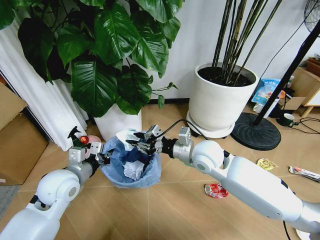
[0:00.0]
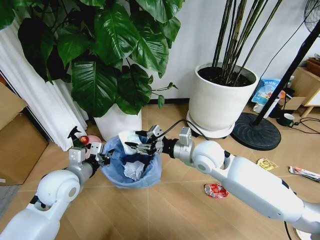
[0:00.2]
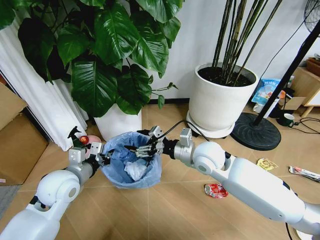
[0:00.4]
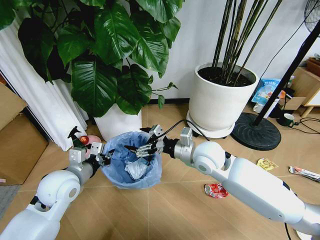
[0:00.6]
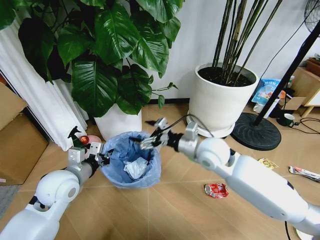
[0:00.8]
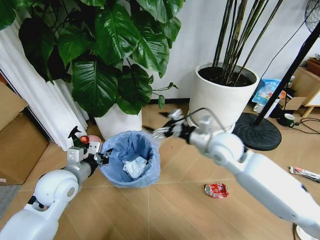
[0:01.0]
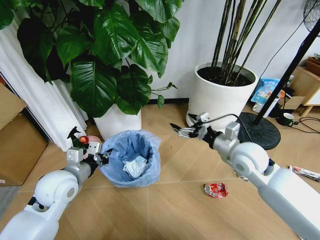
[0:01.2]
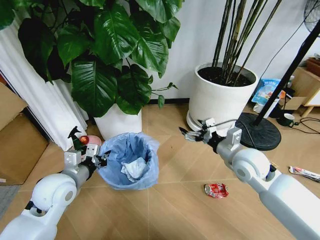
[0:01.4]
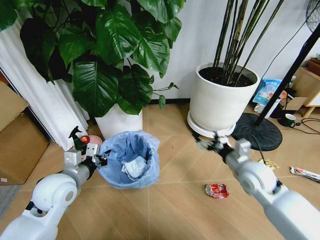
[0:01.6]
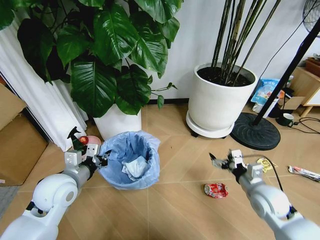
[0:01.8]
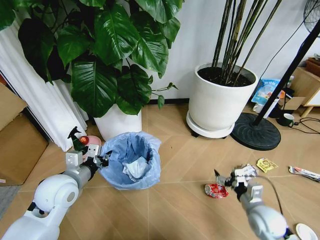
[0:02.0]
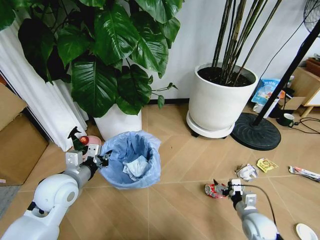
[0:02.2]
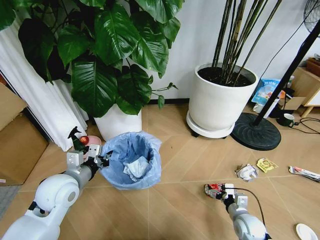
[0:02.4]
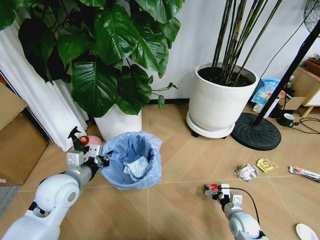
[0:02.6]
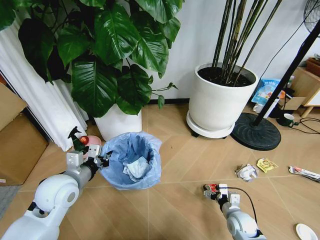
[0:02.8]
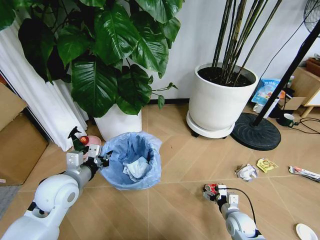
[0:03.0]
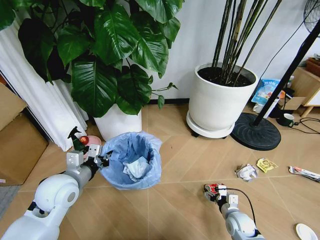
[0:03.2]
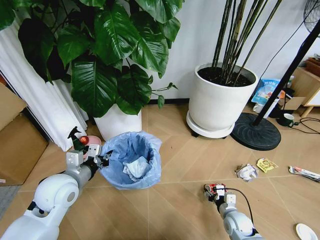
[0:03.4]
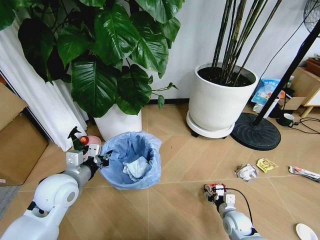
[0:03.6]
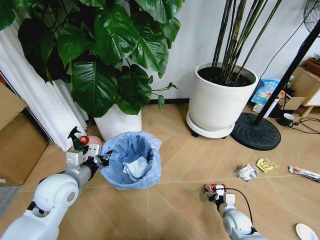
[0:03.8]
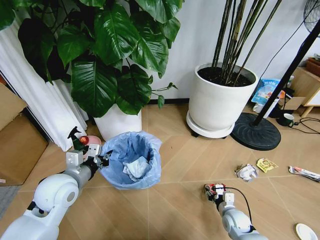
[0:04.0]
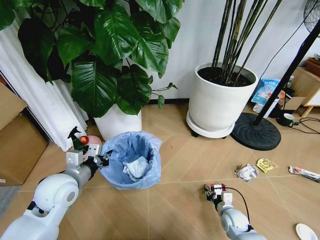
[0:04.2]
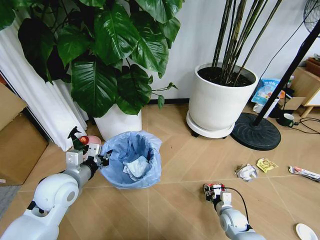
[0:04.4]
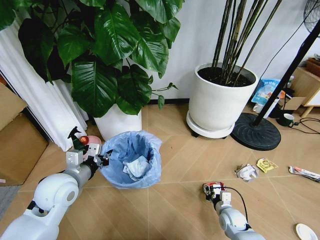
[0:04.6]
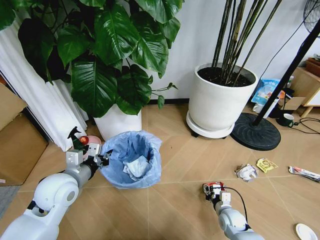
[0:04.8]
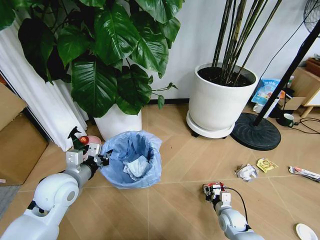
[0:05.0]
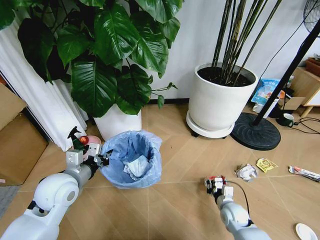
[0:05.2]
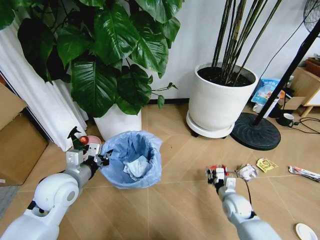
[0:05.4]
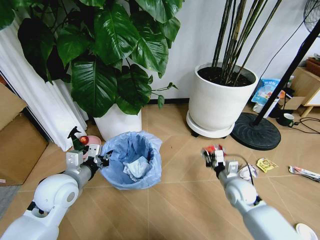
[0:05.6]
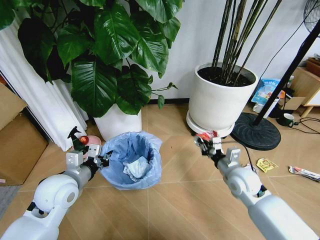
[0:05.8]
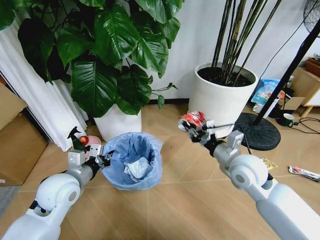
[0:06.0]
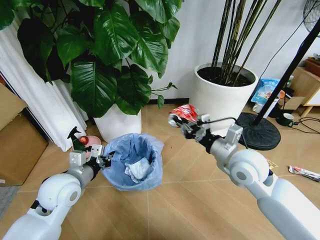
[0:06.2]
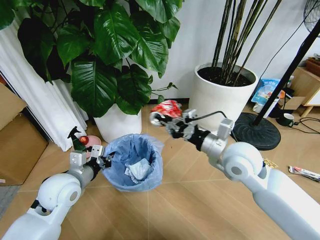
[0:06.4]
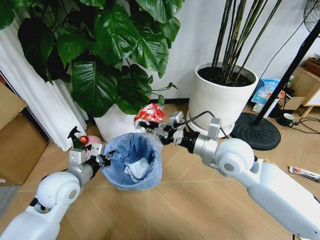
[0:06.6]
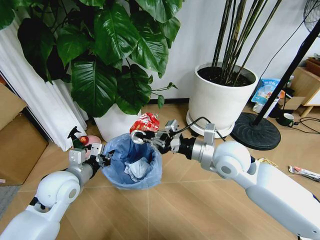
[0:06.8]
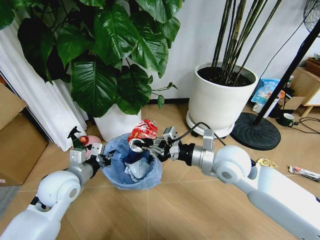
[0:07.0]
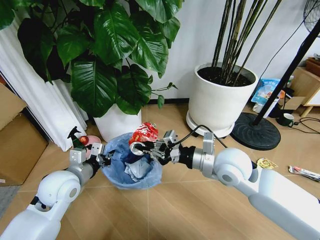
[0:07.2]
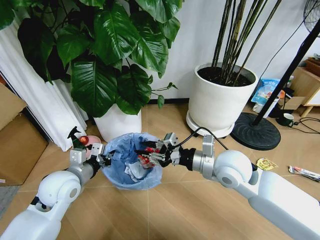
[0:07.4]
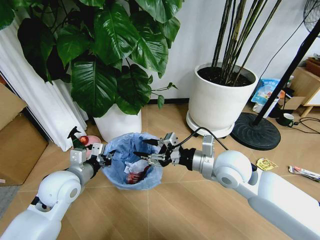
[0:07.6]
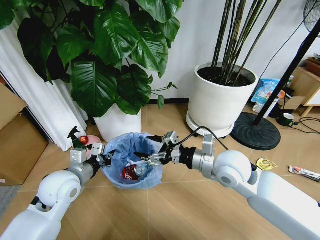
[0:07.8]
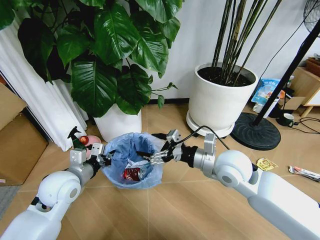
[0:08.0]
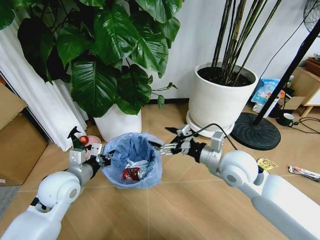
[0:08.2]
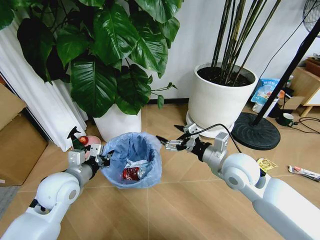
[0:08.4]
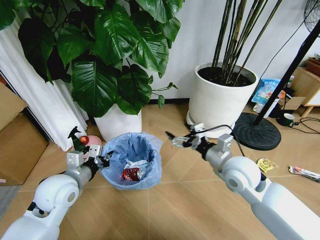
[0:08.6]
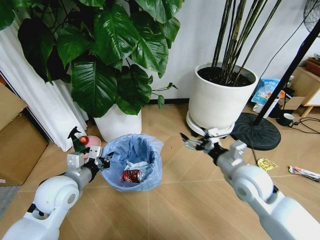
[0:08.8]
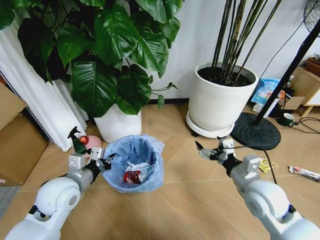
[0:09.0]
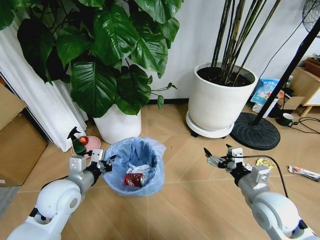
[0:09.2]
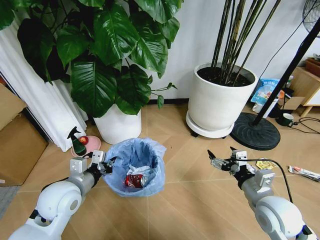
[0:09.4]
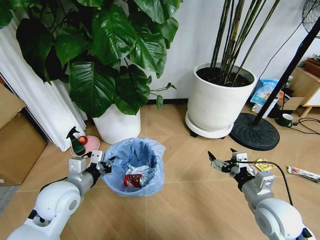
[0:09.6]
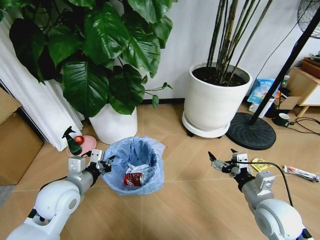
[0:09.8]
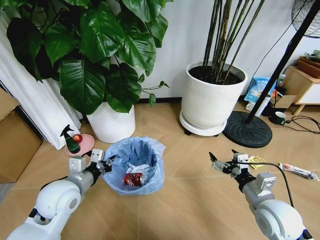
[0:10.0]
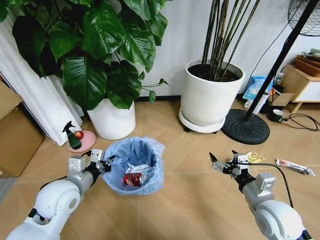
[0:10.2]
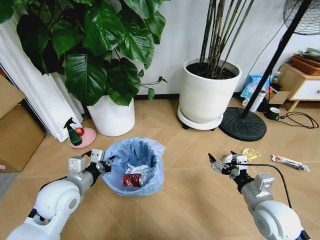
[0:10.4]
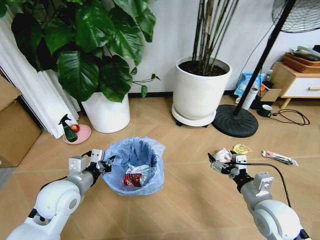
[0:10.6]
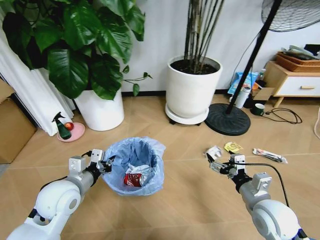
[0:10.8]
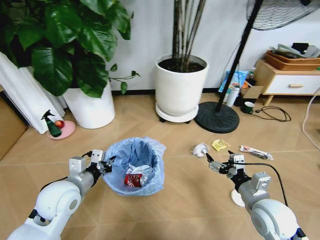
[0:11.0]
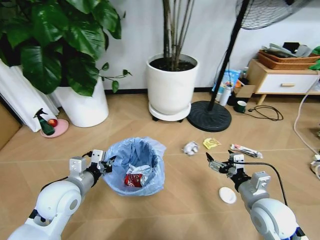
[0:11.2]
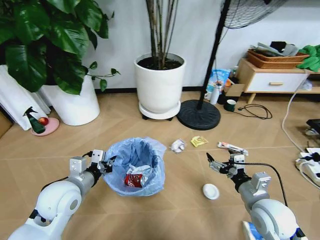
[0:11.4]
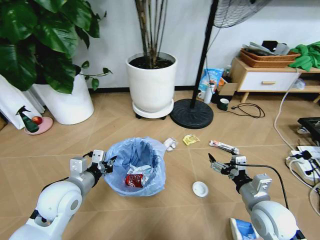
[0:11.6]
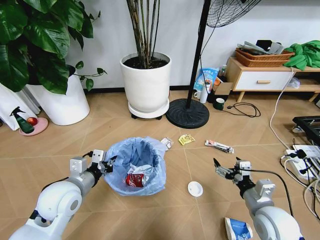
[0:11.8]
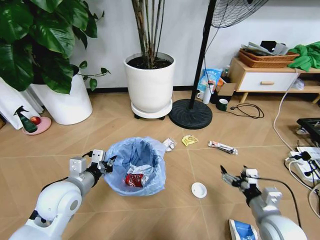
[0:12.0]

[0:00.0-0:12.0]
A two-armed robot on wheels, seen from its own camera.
Task of the whole recording: Pick up the trash bin and place the garbage on the floor into it.
0:00.0 to 0:01.6: The right gripper travels to the right by some 15 cm, and opens its fingers.
0:01.6 to 0:03.0: The right gripper heads downward, covering approximately 25 cm.
0:03.0 to 0:04.4: The right gripper closes its fingers.
0:04.4 to 0:06.0: The right gripper heads upward, covering roughly 30 cm.
0:06.0 to 0:07.6: The right gripper travels to the left by roughly 5 cm, and opens its fingers.
0:07.6 to 0:09.0: The right gripper travels to the right by some 5 cm, and opens its fingers.
0:09.0 to 0:10.4: The right gripper heads backward, covering roughly 5 cm.
0:10.4 to 0:12.0: The right gripper shifts by roughly 5 cm.

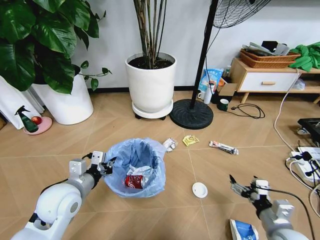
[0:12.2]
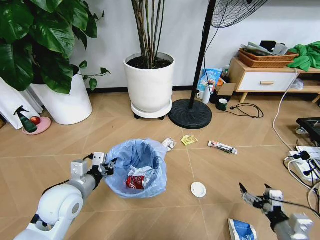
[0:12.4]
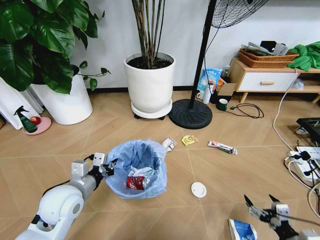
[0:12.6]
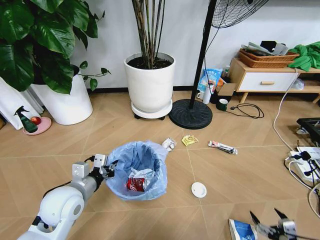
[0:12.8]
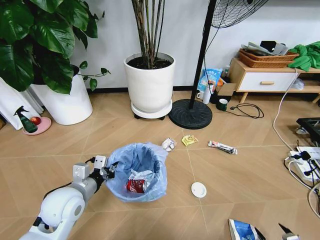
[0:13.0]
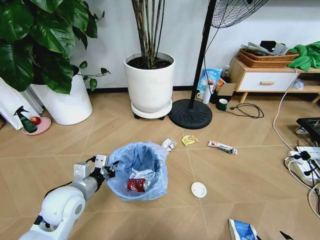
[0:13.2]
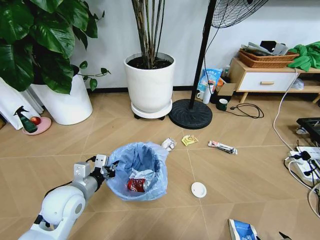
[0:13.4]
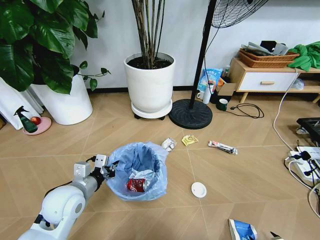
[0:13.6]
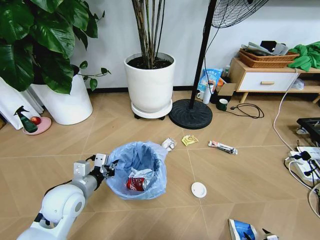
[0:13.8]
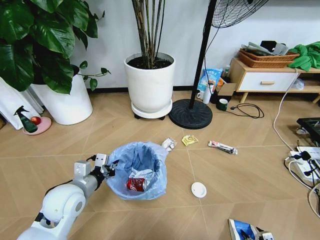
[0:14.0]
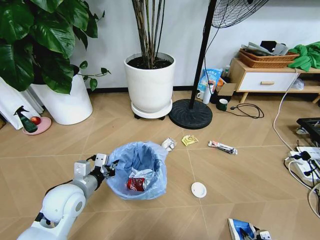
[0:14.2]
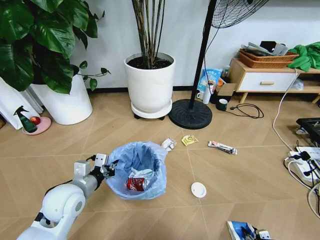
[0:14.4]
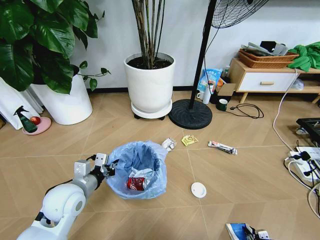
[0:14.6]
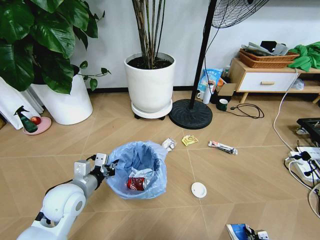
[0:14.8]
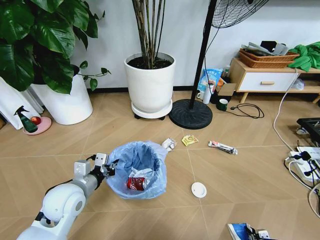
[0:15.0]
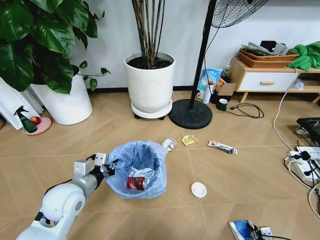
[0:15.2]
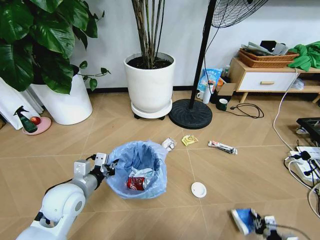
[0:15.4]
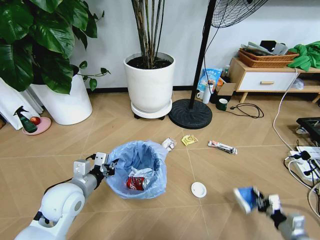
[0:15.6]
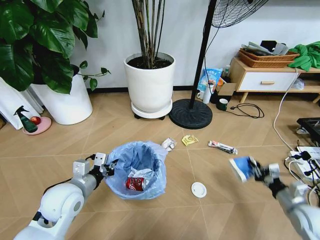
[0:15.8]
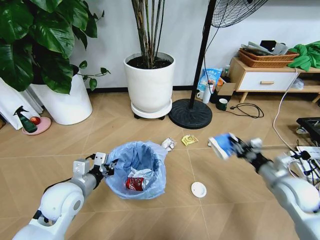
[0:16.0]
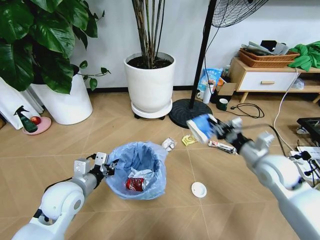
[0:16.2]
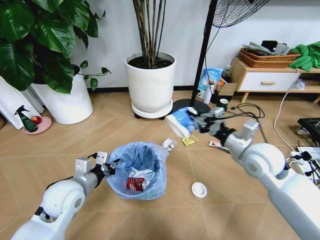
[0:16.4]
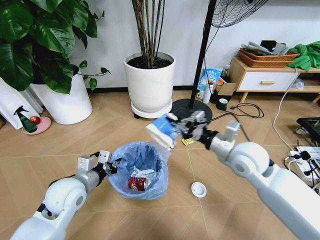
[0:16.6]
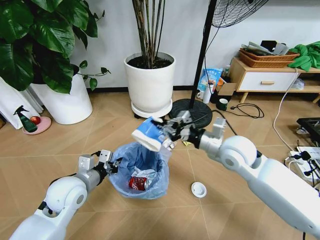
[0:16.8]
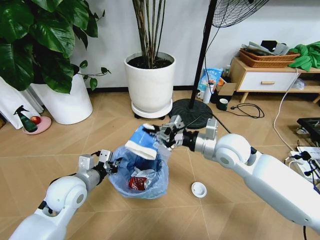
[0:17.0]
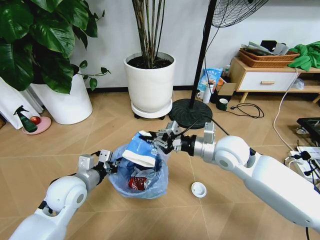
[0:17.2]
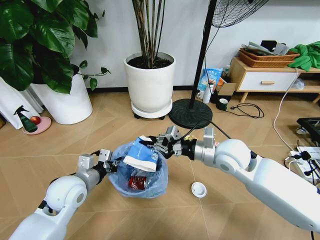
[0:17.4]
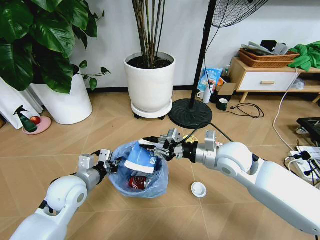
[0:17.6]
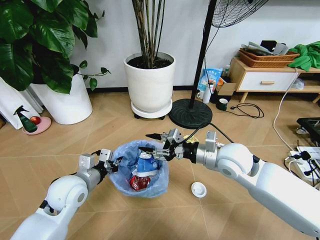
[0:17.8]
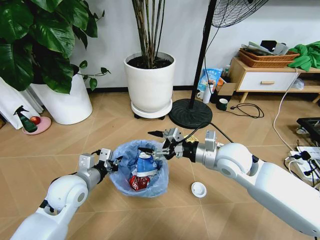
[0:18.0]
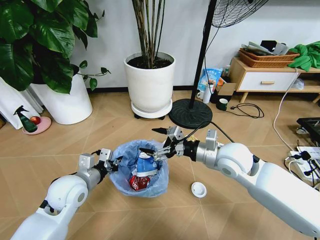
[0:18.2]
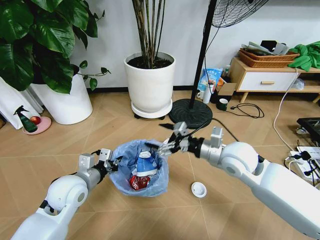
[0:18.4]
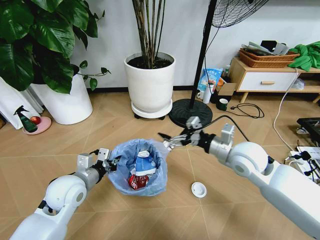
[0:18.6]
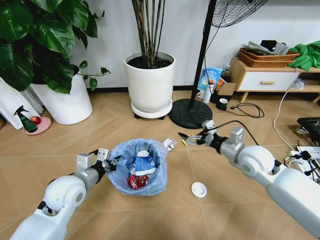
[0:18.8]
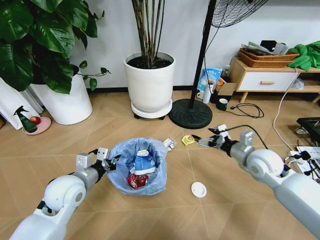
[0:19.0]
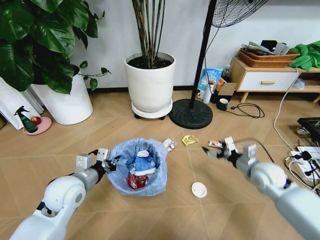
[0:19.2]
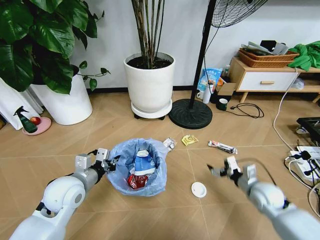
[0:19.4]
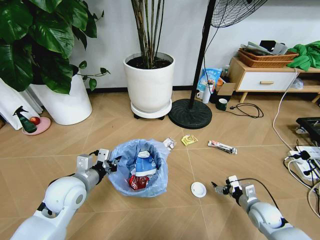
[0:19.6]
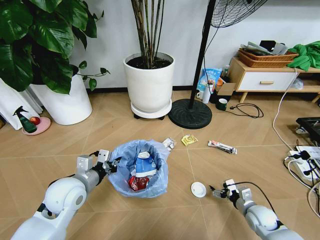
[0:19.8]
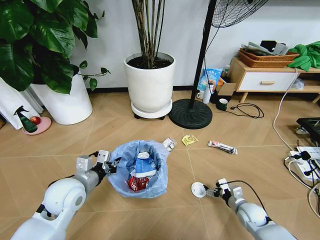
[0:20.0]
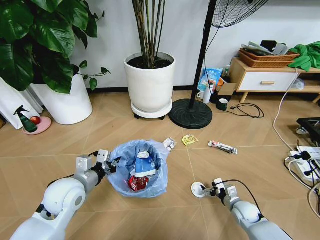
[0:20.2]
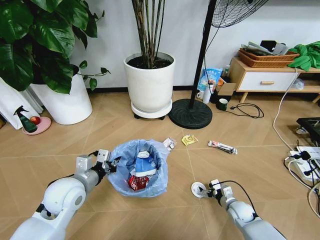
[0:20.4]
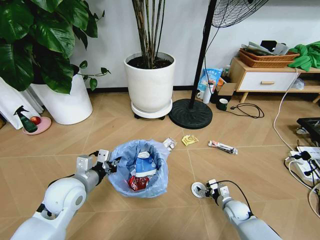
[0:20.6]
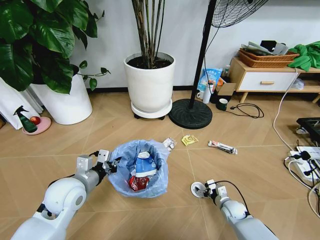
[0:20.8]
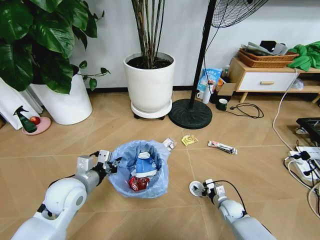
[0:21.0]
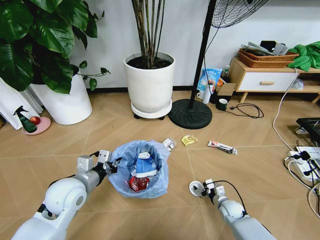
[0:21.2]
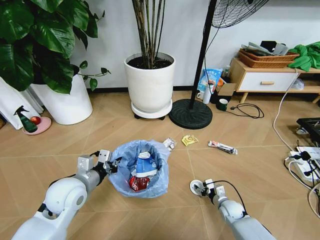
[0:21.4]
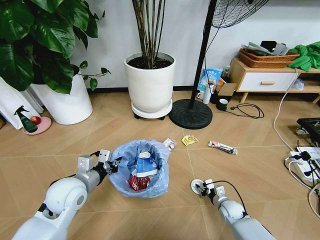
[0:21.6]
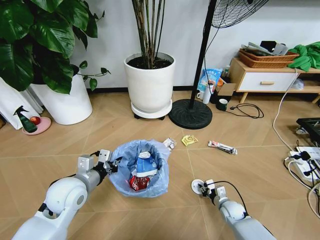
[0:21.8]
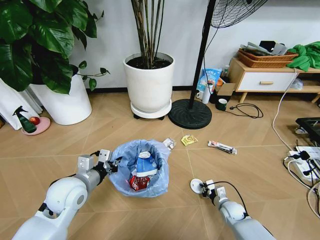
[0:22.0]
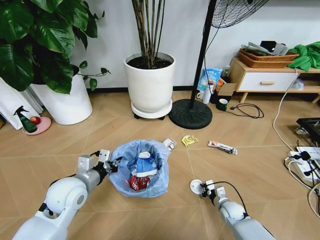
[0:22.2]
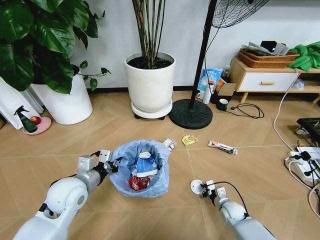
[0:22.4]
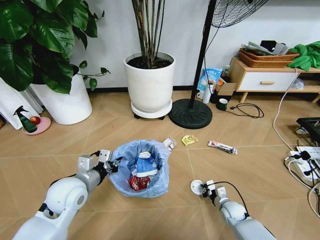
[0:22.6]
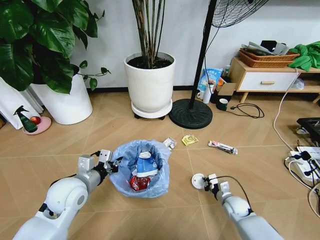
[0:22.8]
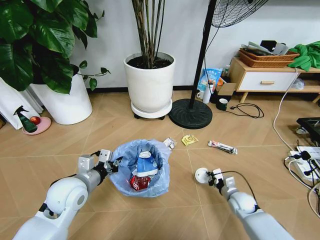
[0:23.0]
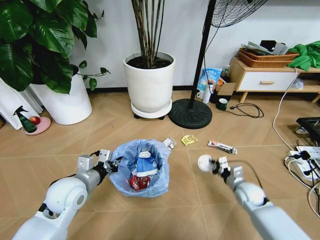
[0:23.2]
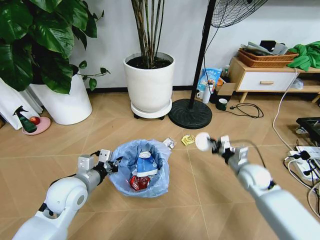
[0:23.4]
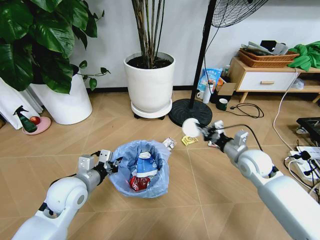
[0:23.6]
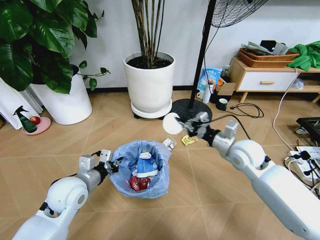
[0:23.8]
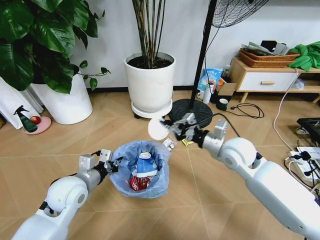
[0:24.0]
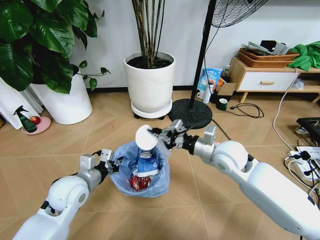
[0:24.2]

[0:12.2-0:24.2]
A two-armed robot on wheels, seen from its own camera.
Task of the whole recording: Pick up the trash bin and place the garbage on the floor into it.
0:12.2 to 0:13.8: The right gripper shifts approximately 25 cm downward, to the right and backward.
0:13.8 to 0:15.2: The right gripper closes its fingers.
0:15.2 to 0:16.6: The right gripper shifts approximately 50 cm upward, forward and to the left.
0:16.6 to 0:18.2: The right gripper opens its fingers.
0:18.2 to 0:19.8: The right gripper travels downward and to the right by approximately 35 cm.
0:19.8 to 0:21.2: The right gripper heads downward and to the left, covering some 10 cm.
0:21.2 to 0:22.6: The right gripper closes.
0:22.6 to 0:24.2: The right gripper moves upward, roughly 35 cm.
